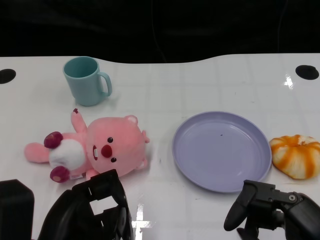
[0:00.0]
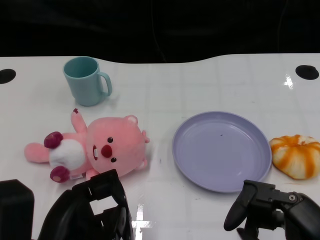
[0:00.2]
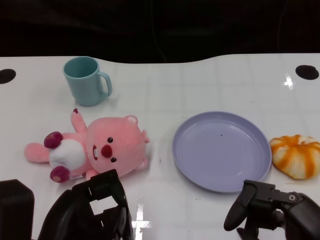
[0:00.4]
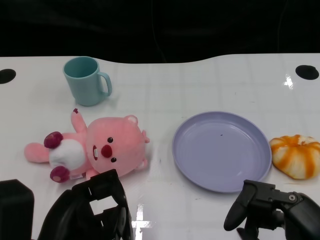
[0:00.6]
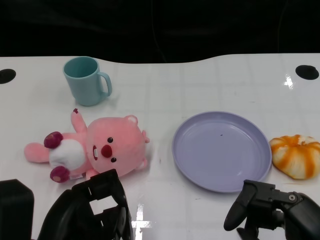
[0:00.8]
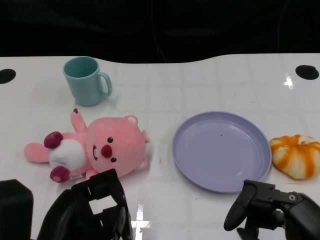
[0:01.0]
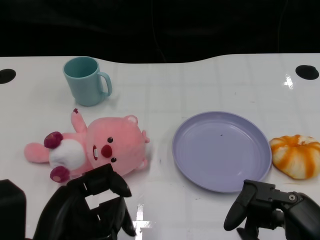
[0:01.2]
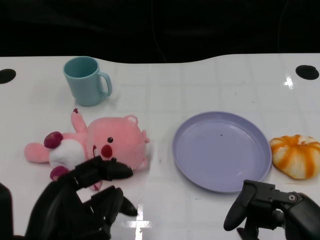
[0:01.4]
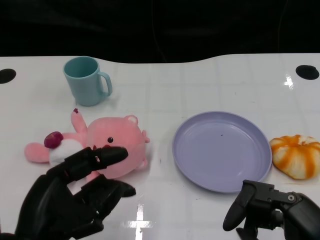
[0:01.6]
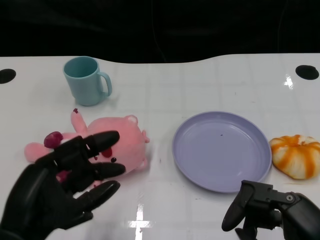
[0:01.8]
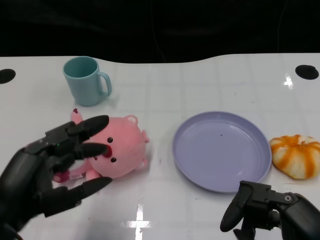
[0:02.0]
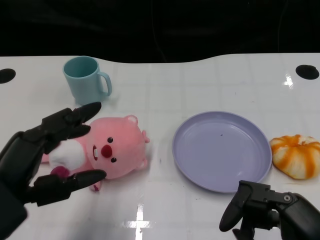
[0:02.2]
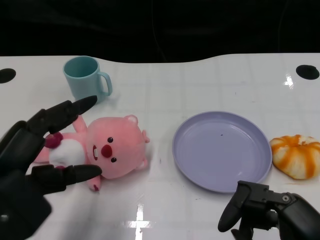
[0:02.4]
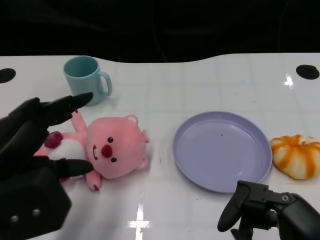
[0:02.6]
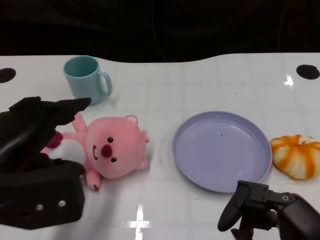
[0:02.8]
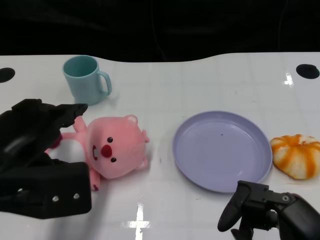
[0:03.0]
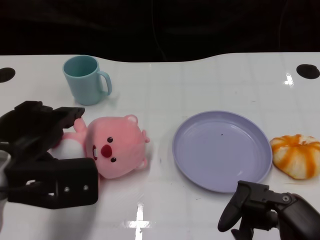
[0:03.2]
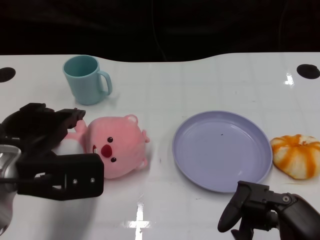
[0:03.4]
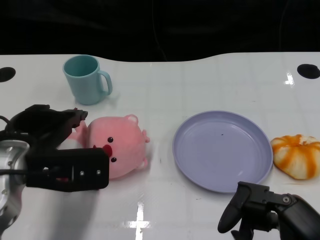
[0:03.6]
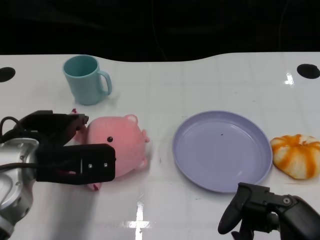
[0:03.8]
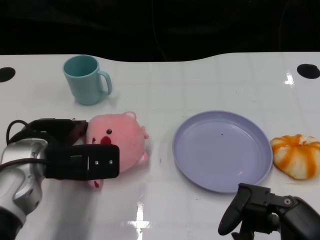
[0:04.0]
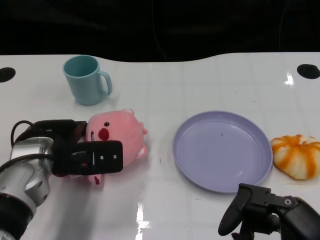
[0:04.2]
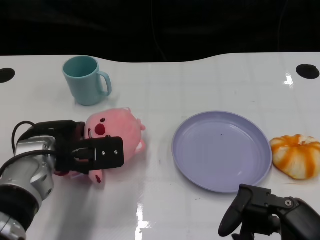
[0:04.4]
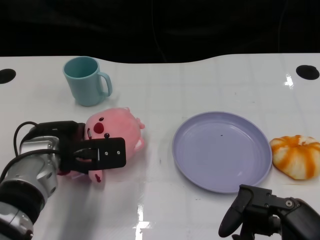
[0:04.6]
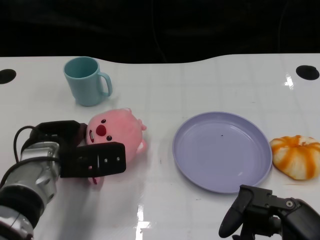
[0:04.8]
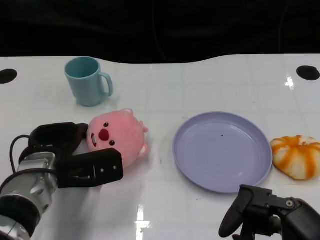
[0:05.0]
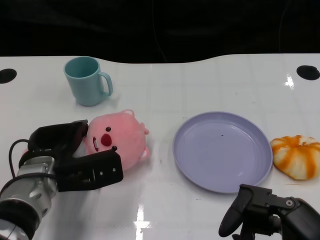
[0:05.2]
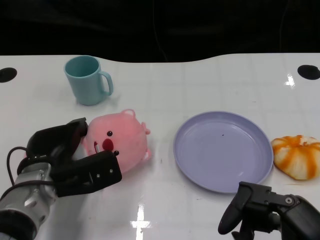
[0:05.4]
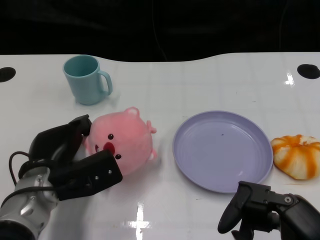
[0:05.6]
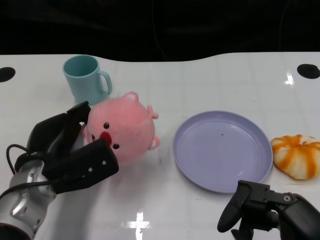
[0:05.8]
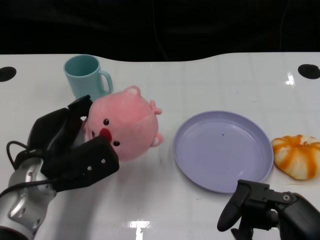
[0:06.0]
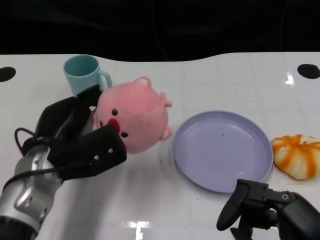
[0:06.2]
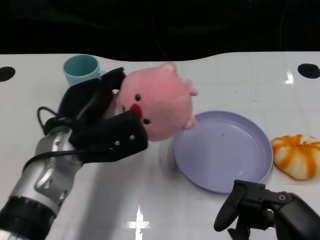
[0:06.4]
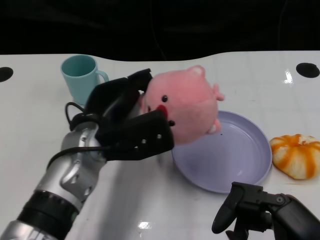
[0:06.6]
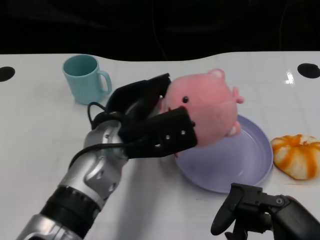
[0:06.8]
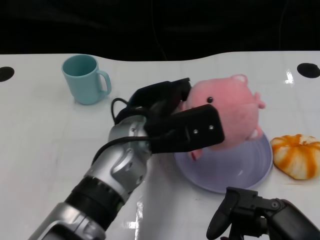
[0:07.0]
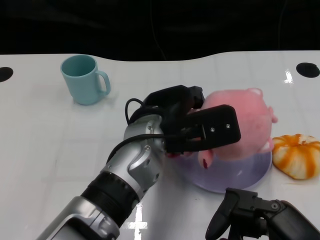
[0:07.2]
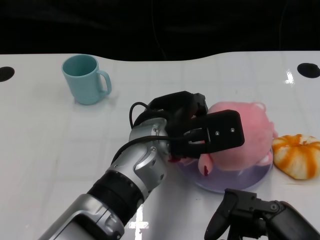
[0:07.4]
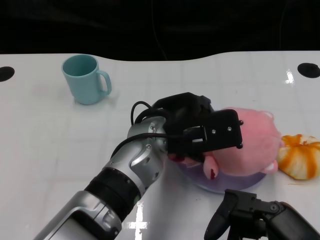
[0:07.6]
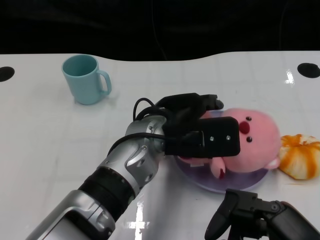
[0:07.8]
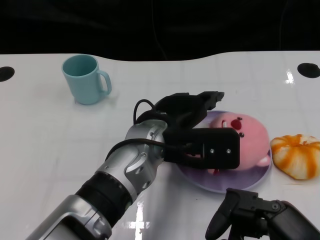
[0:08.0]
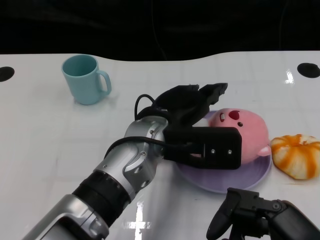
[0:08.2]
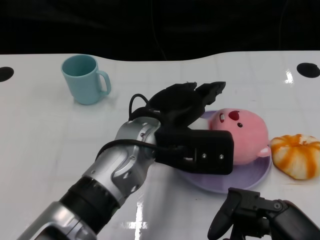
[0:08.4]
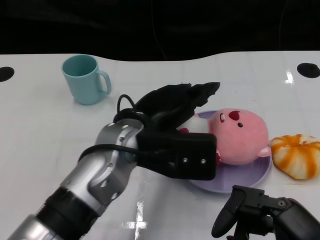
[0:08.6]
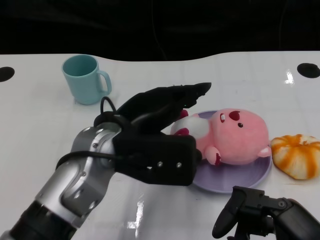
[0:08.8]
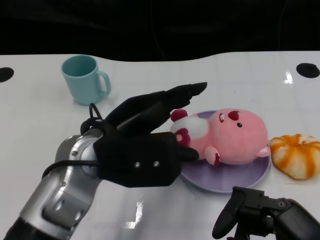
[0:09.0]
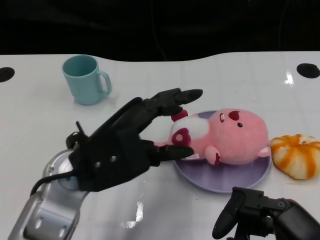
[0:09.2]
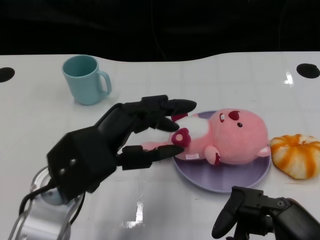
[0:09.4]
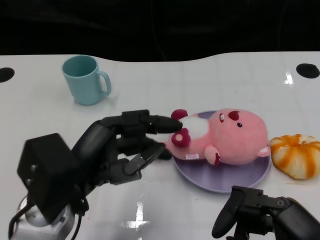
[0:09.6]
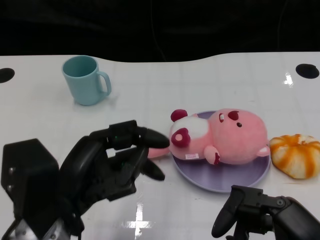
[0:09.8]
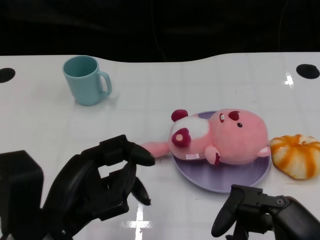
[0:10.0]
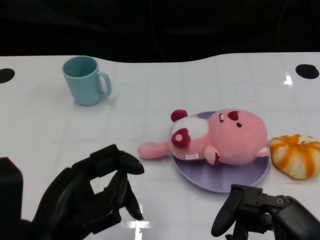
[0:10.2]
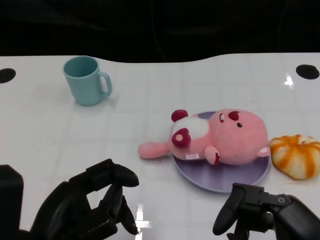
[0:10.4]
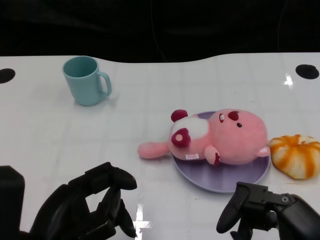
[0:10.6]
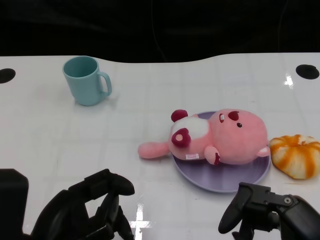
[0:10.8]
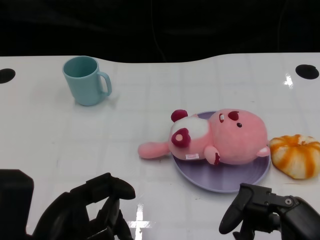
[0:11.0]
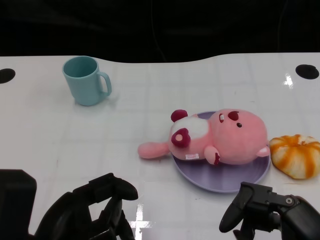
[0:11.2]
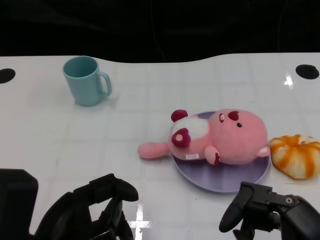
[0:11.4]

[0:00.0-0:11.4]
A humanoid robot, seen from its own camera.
Task of the whole recording: Pick up the doll on one side of the plate and place it into the plate.
Step, 0:01.0 to 0:05.6: Grasp the pink doll with the left gripper.
Step, 0:05.8 to 0:07.8: Place the pink doll into the plate with the left gripper.
0:01.4 to 0:02.8: The left hand goes some 10 cm upward and forward.
0:02.8 to 0:04.2: The left hand is displaced forward and downward by approximately 15 cm.
0:04.2 to 0:05.6: The left hand shifts by about 5 cm.
0:05.6 to 0:07.2: The left hand travels to the right and upward by approximately 20 cm.
0:08.6 to 0:10.0: The left hand shifts about 15 cm to the left and backward.
0:10.0 to 0:11.4: There are only small adjustments of the hands.

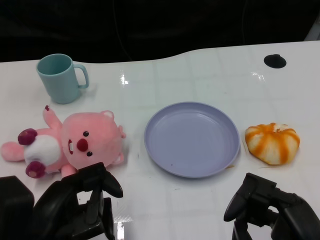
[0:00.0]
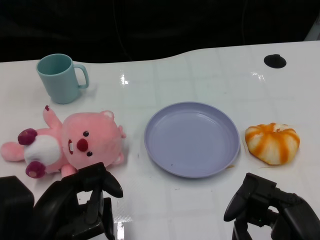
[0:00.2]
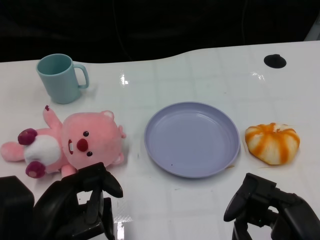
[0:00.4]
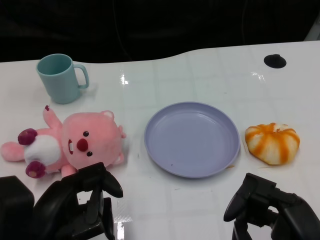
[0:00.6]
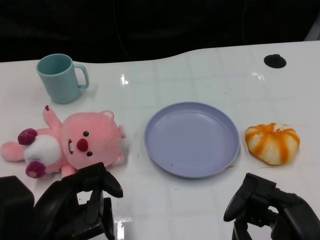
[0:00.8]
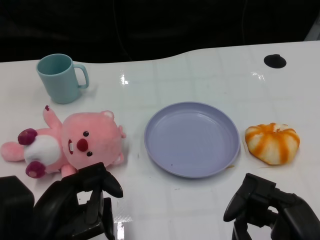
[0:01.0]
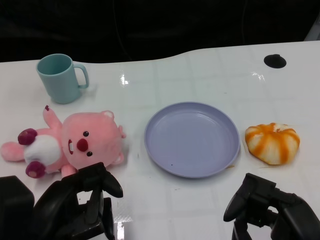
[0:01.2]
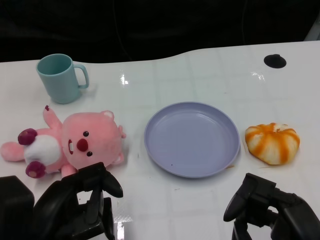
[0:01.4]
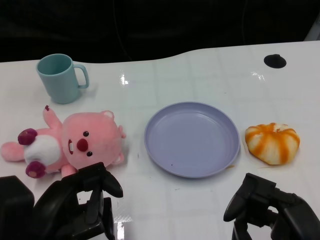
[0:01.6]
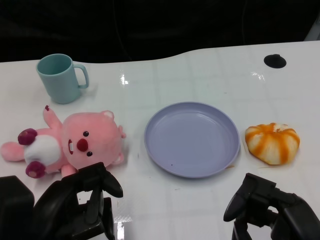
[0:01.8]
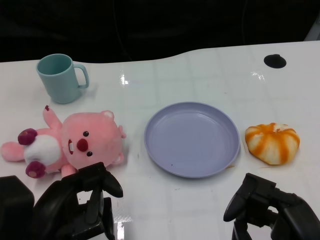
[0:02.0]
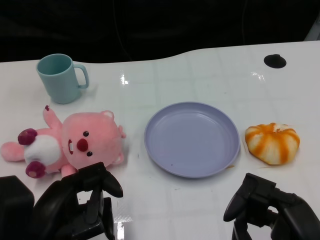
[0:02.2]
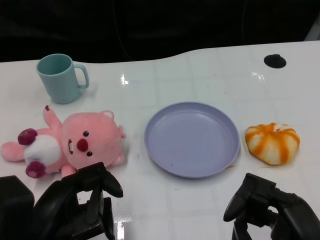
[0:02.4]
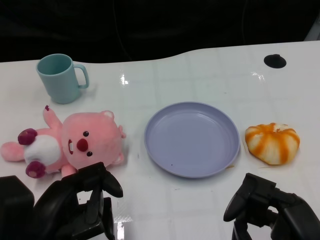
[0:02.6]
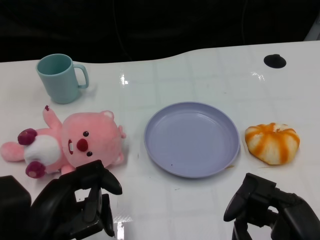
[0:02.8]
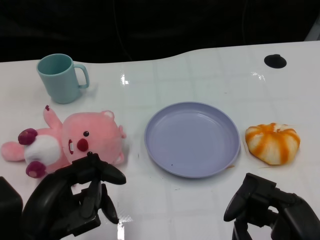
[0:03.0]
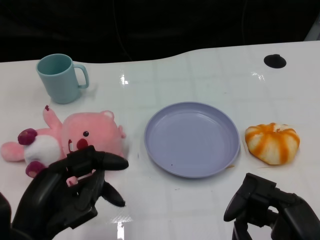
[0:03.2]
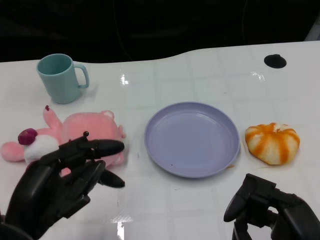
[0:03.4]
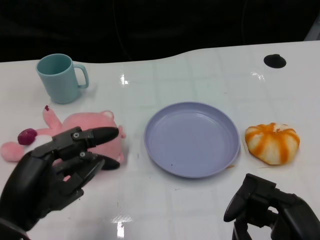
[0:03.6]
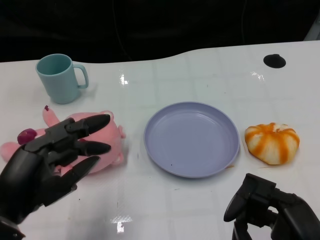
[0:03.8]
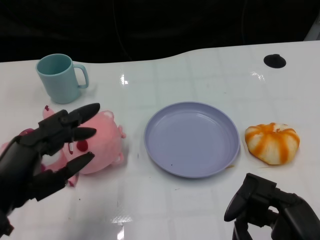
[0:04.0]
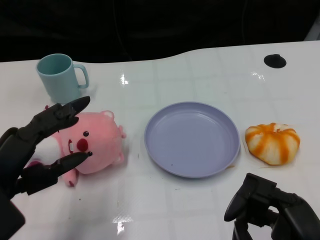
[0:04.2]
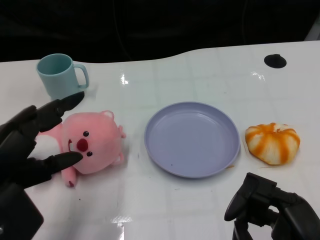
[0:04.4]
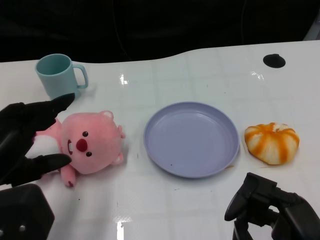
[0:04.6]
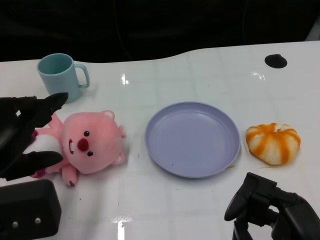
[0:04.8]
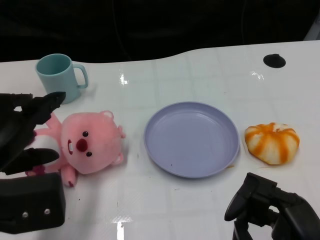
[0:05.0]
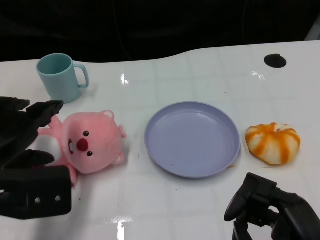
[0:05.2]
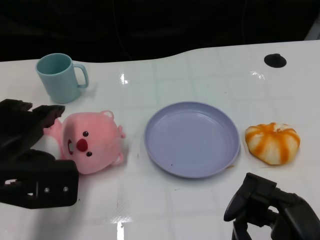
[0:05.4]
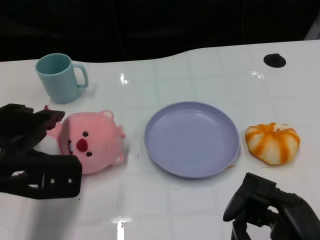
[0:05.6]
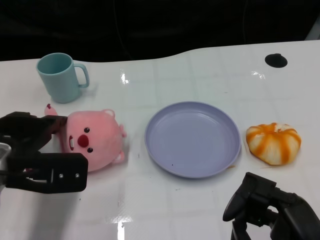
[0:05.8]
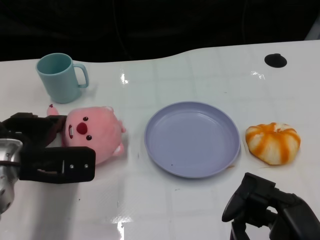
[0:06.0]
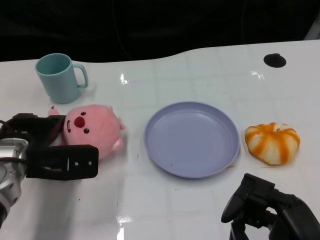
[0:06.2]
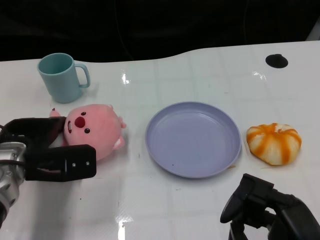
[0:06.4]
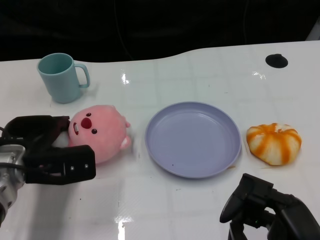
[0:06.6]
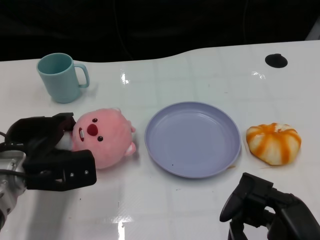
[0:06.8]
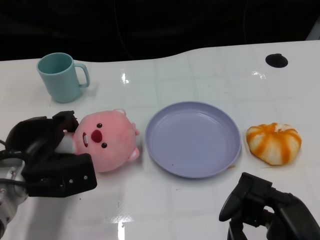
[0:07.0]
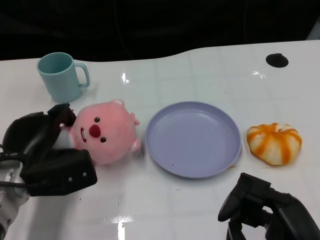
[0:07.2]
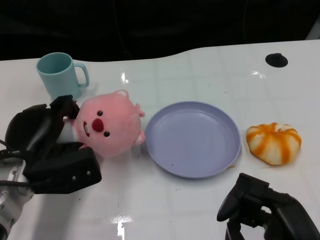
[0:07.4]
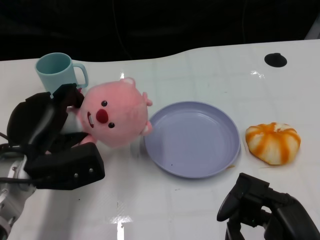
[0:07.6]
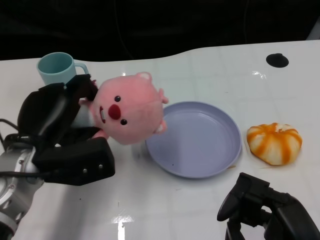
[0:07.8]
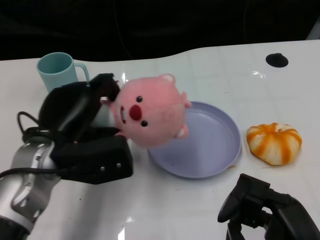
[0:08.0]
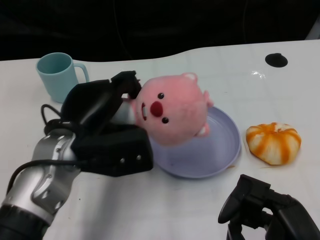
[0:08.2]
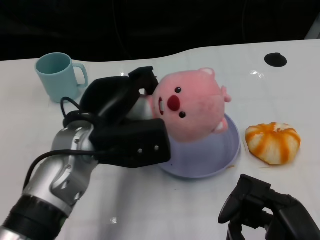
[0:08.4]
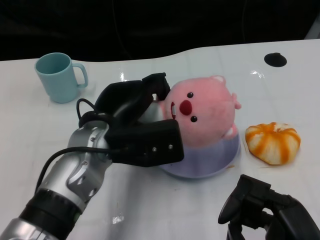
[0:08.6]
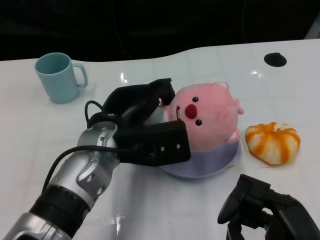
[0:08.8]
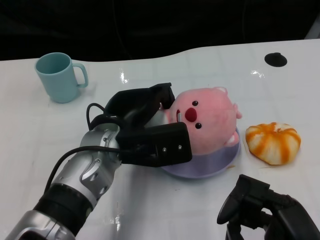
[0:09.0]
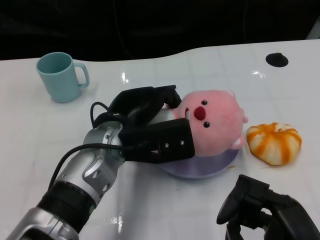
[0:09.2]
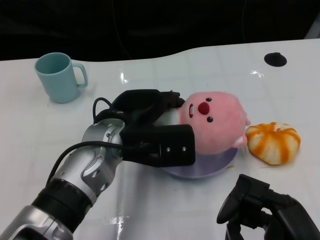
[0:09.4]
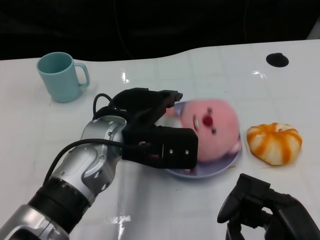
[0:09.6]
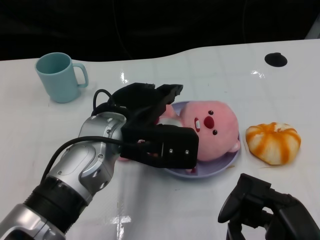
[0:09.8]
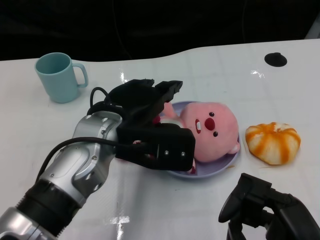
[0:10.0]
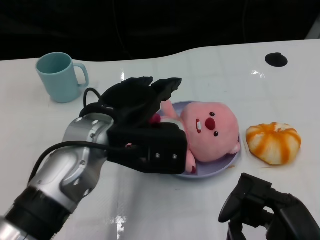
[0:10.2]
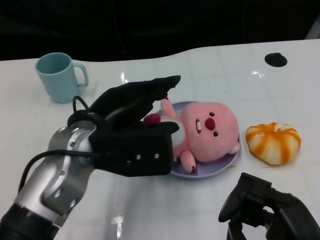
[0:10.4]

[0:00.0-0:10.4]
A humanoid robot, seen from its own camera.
Task of the whole recording: Pick up the doll on one side of the plate and place it into the plate.
Step, 0:02.8 to 0:07.2: Grasp the pink doll with the left gripper.
Step, 0:07.4 to 0:10.0: Place the pink doll into the plate with the left gripper.
0:01.4 to 0:03.0: There are only small adjustments of the hands.
0:03.0 to 0:04.4: The left hand goes approximately 5 cm upward.
0:04.4 to 0:06.0: The left hand moves forward, approximately 10 cm.
0:07.4 to 0:09.0: The left hand heads to the right and upward, covering roughly 15 cm.
0:09.0 to 0:10.4: The left hand shifts by about 5 cm.
